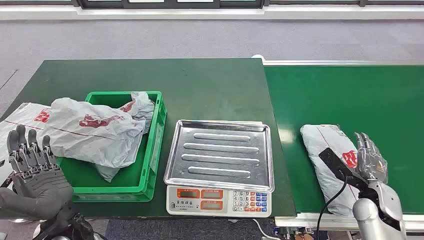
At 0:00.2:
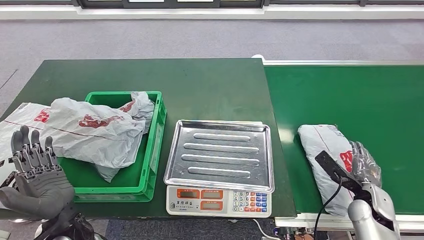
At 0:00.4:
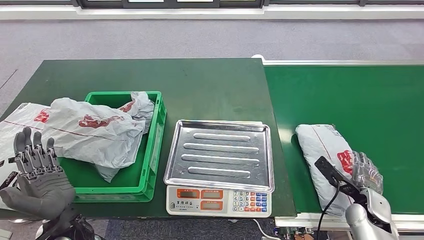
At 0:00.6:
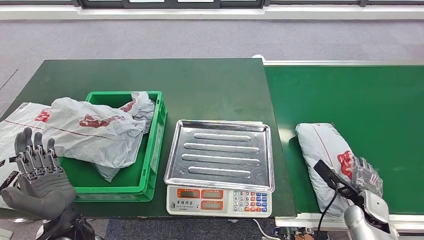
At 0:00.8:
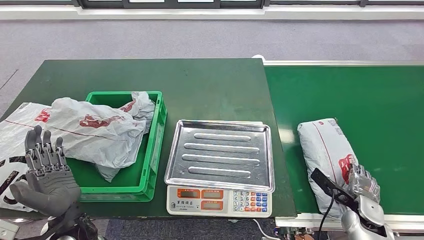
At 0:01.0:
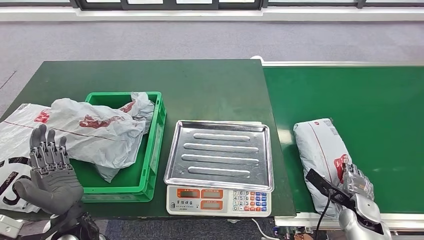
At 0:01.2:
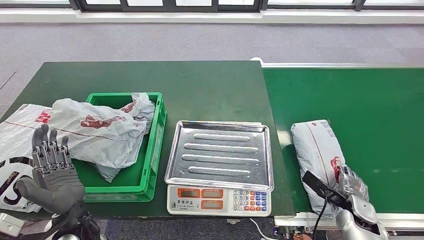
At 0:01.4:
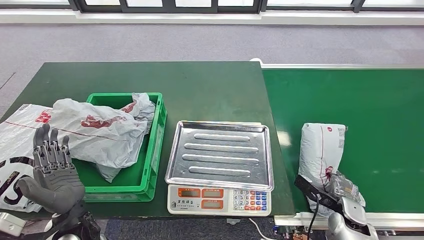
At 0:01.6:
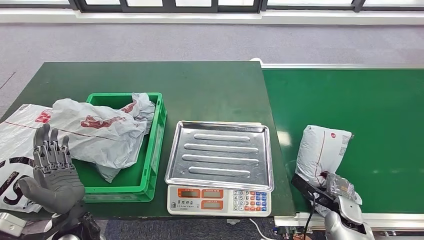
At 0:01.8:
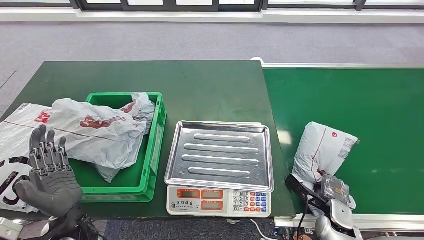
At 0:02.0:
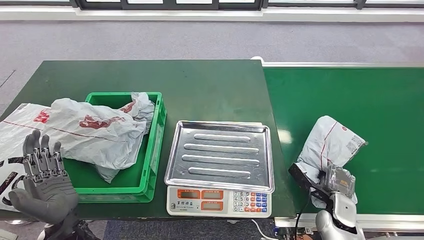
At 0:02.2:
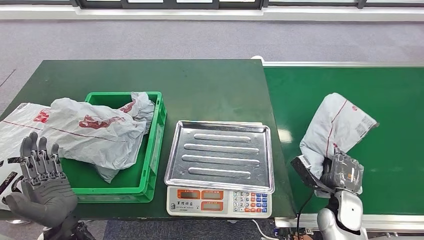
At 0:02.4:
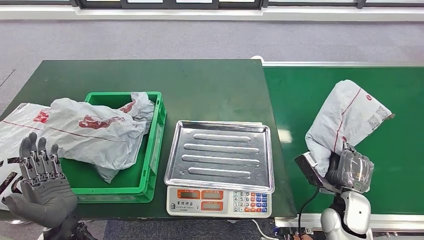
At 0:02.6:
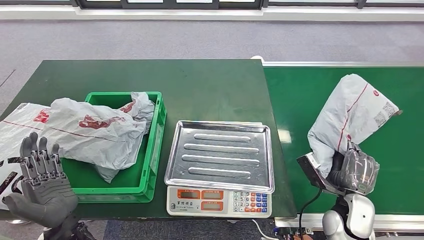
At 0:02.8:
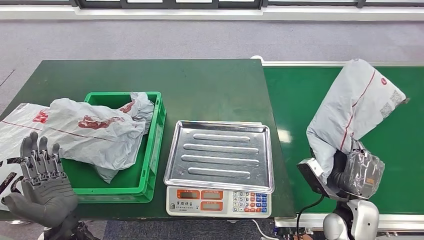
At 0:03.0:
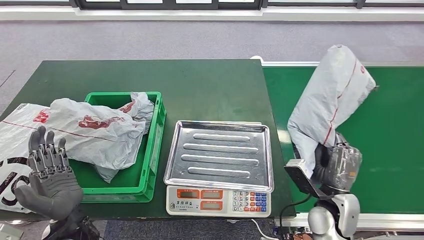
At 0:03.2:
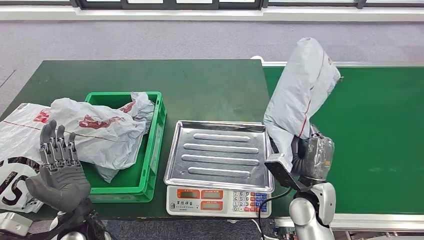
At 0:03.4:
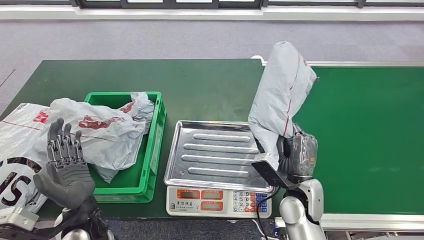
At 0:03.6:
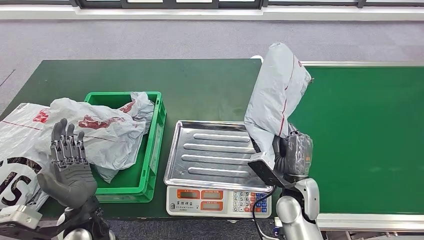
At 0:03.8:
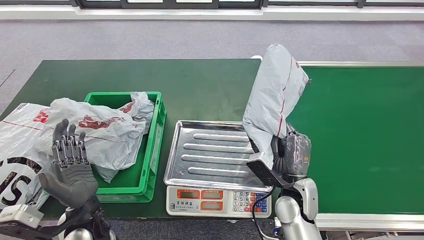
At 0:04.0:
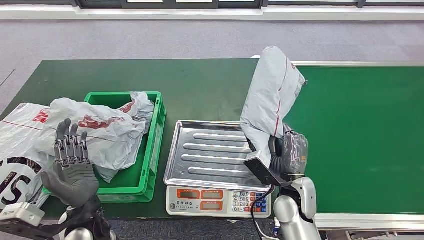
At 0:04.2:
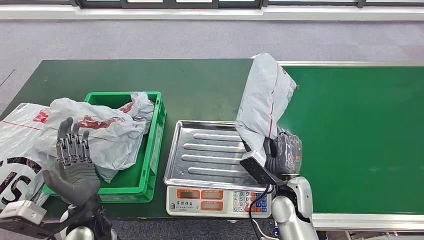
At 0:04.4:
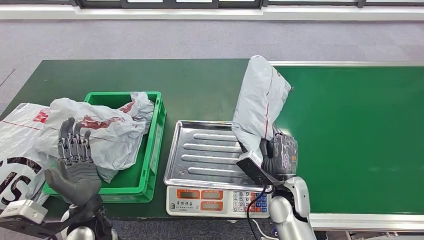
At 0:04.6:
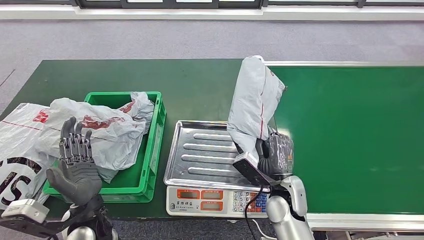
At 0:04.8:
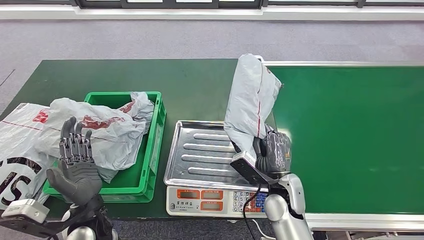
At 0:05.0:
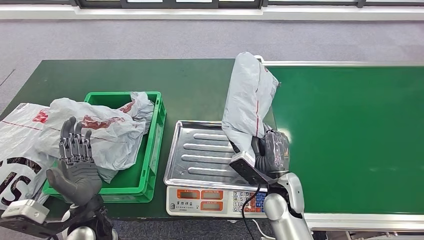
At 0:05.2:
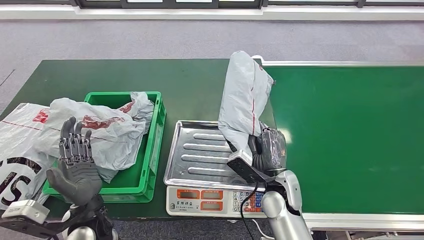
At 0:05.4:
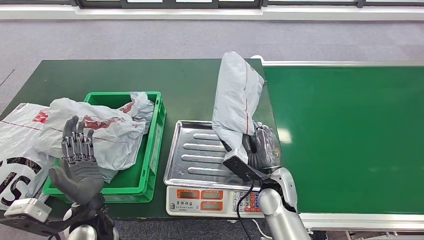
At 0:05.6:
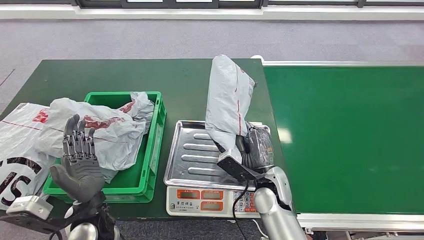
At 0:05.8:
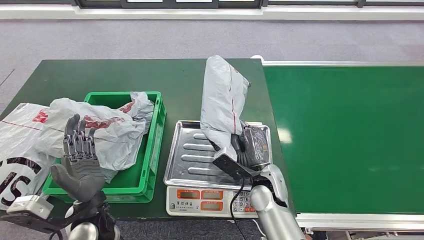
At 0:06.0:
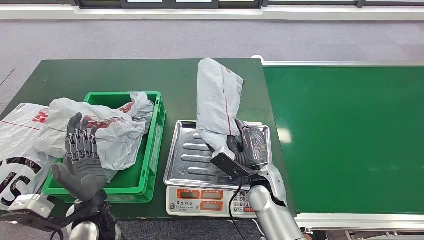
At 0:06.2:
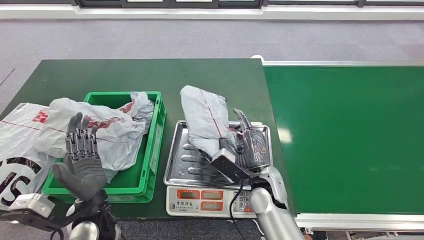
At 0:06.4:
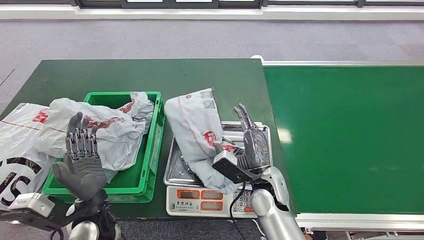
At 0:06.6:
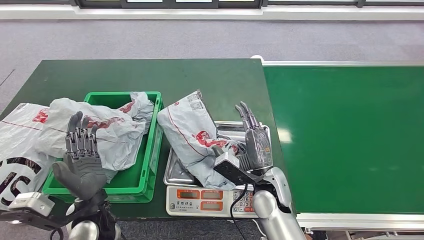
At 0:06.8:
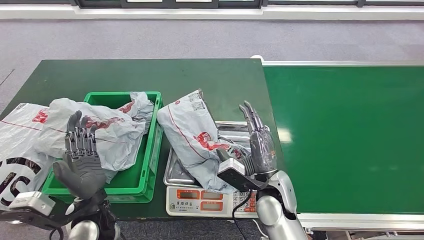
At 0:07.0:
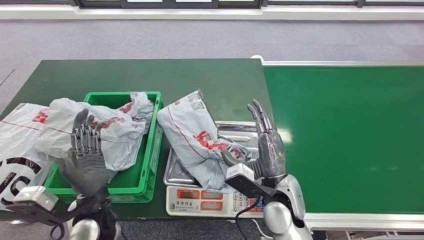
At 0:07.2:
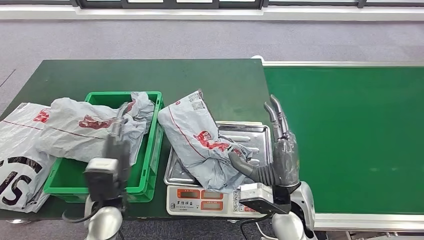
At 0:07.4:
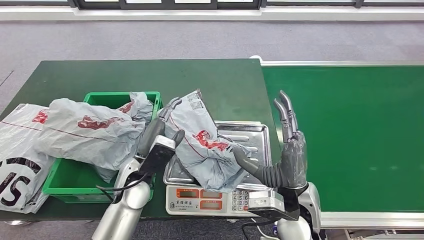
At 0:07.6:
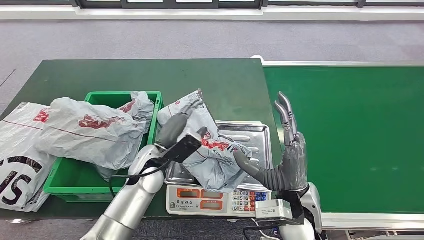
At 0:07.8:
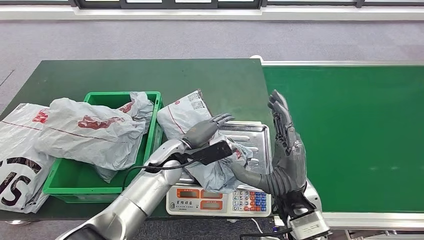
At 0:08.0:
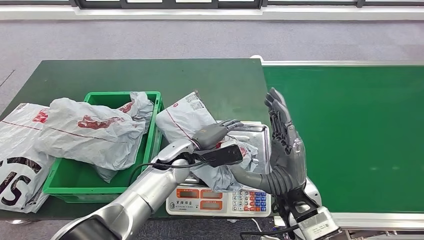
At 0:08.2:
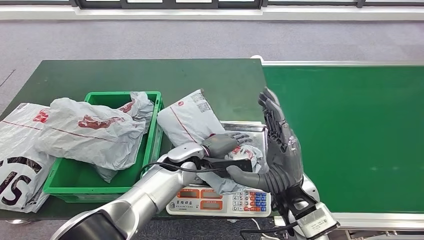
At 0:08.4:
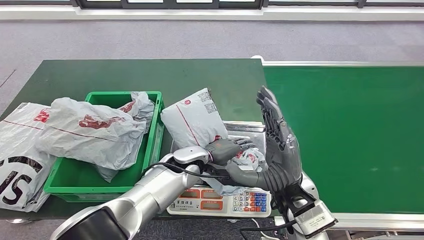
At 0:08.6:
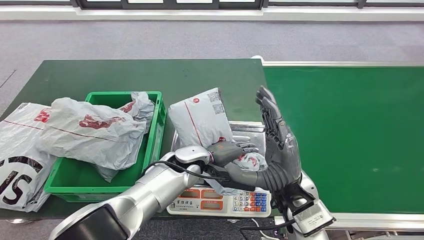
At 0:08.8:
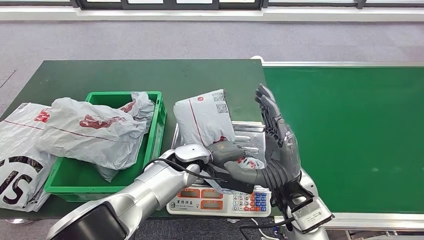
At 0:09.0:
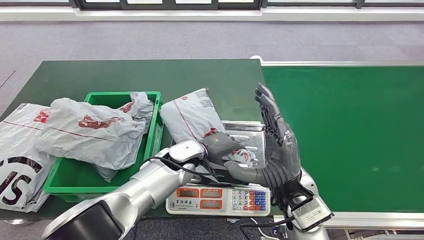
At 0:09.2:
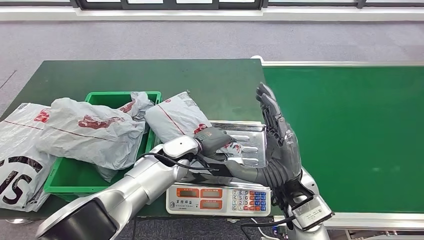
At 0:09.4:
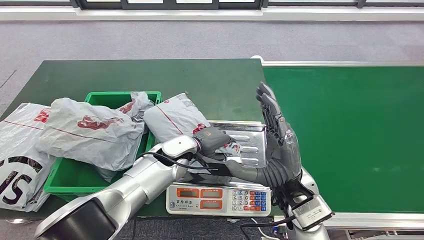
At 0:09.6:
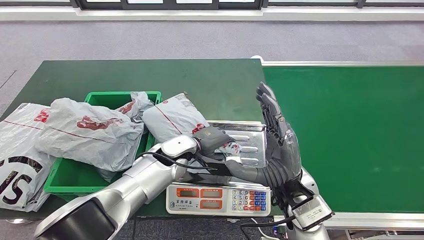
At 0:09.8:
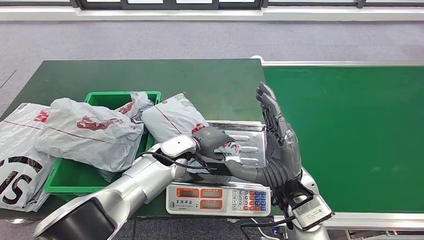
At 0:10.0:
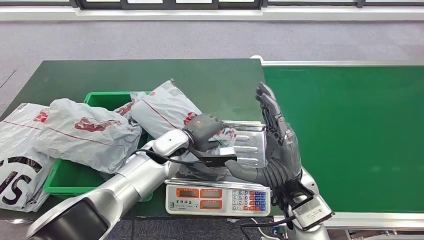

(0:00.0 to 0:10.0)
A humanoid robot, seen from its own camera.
Step, 0:00.0 - 0:02.6: Pick up the package from the conveyor belt.
Step, 0:03.0 - 0:06.8: Place the package onto the inbound machine.
Step, 0:07.0 - 0:10.0: Pick up the package from the inbound machine.
0:04.2 - 0:05.8: The right hand travels to the left by roughly 5 cm.
0:07.2 - 0:08.6: The left hand shifts roughly 20 cm to the right and forward.

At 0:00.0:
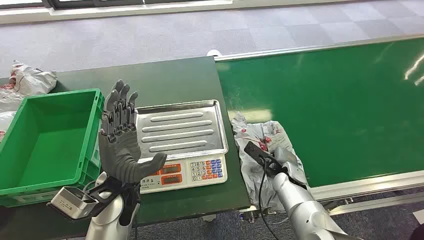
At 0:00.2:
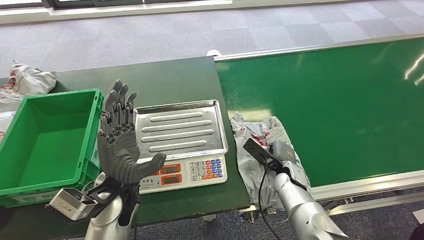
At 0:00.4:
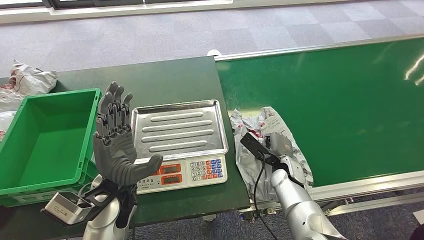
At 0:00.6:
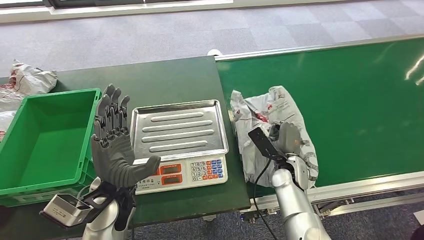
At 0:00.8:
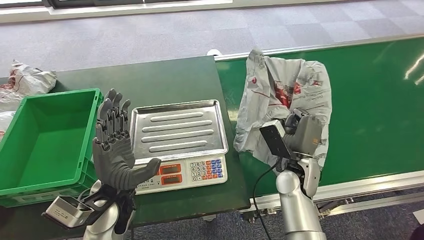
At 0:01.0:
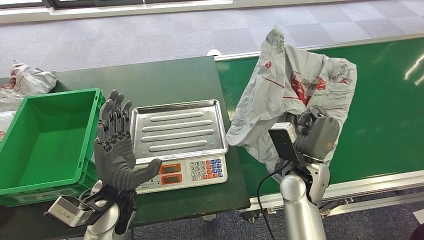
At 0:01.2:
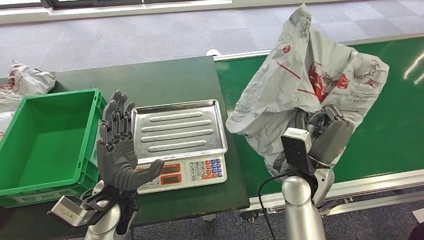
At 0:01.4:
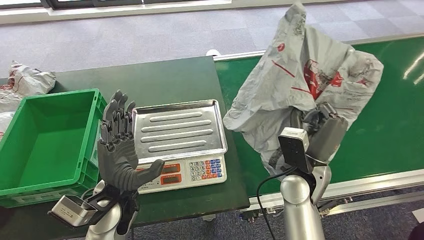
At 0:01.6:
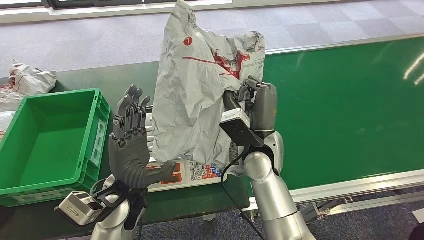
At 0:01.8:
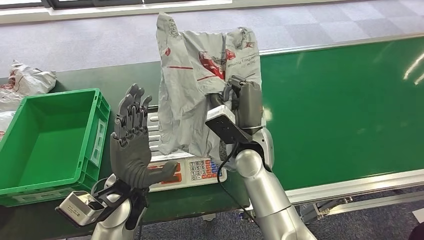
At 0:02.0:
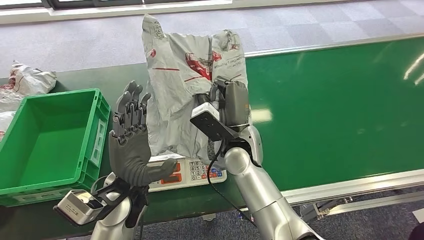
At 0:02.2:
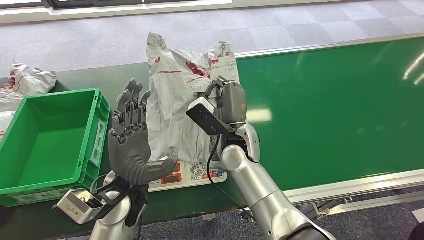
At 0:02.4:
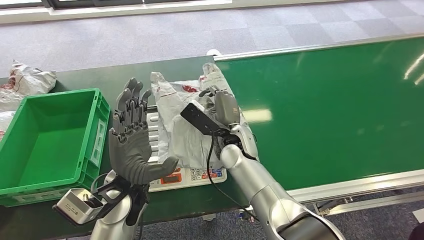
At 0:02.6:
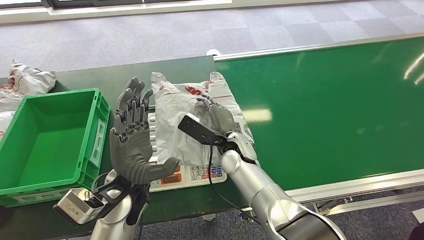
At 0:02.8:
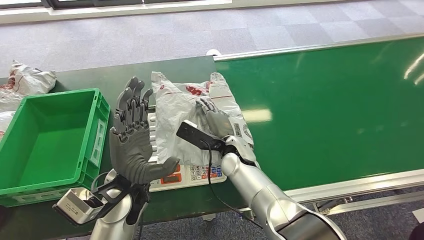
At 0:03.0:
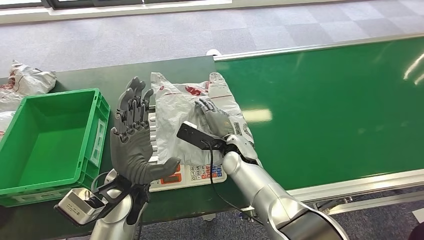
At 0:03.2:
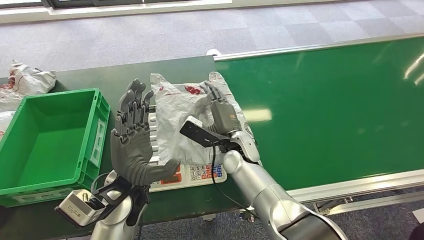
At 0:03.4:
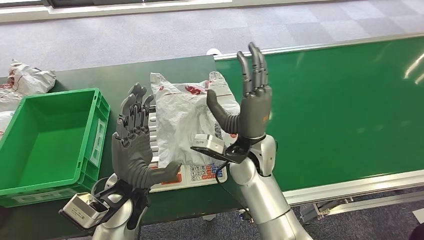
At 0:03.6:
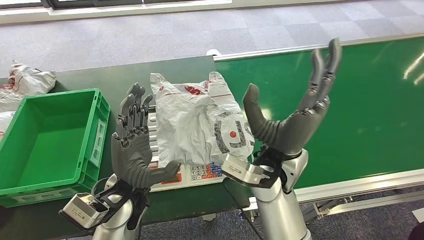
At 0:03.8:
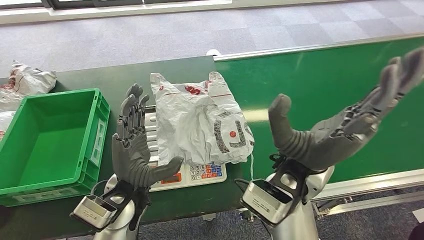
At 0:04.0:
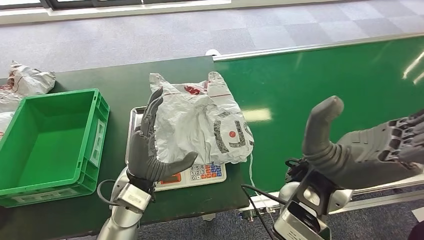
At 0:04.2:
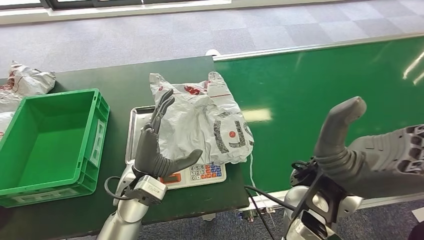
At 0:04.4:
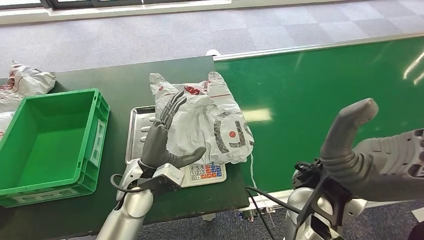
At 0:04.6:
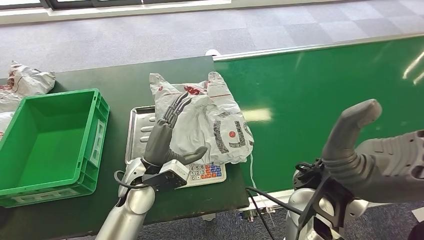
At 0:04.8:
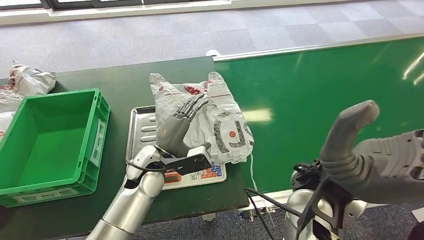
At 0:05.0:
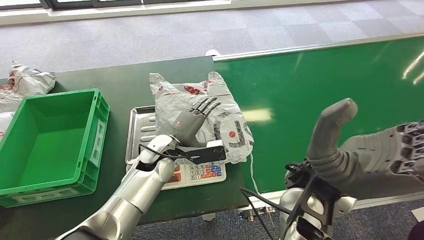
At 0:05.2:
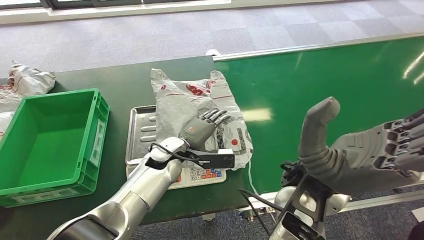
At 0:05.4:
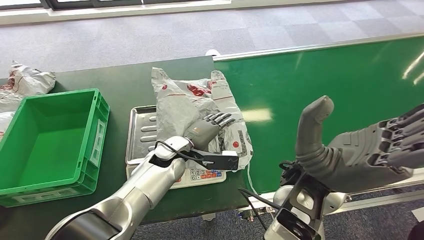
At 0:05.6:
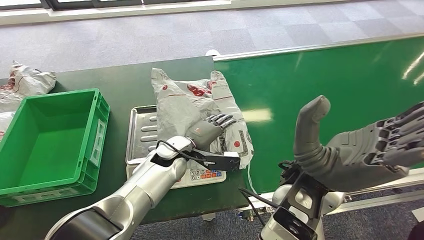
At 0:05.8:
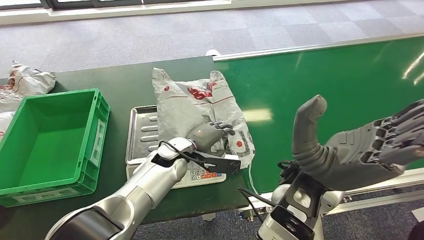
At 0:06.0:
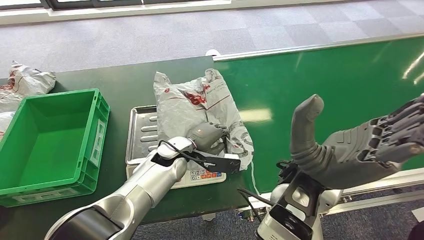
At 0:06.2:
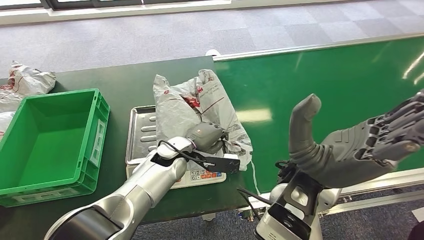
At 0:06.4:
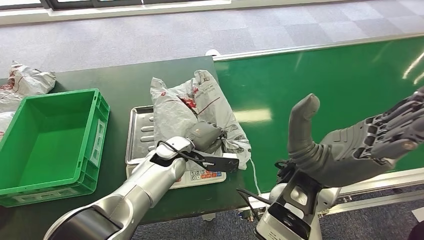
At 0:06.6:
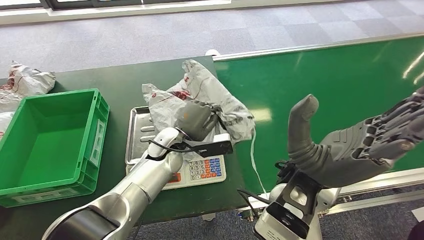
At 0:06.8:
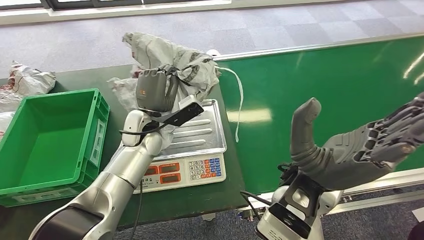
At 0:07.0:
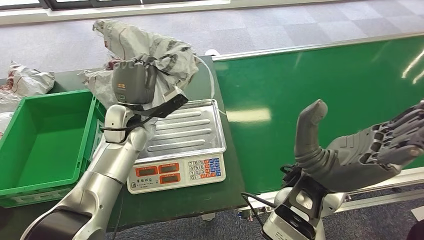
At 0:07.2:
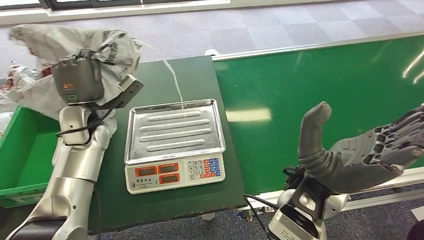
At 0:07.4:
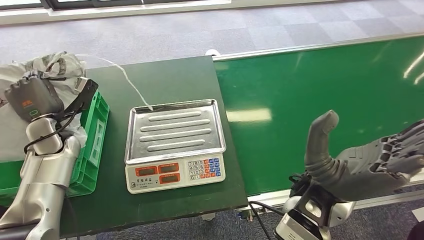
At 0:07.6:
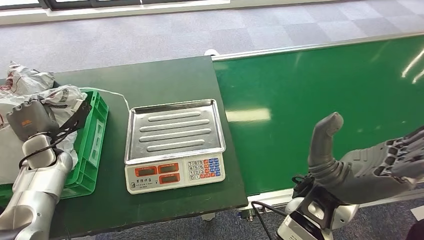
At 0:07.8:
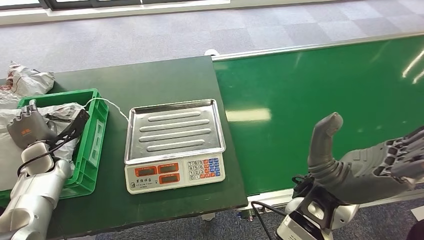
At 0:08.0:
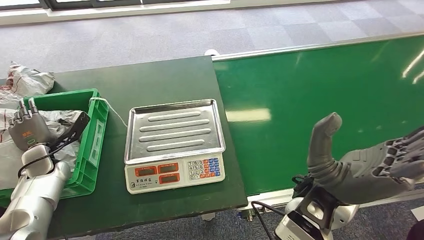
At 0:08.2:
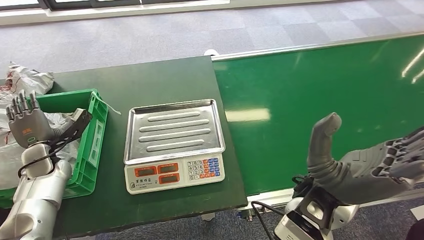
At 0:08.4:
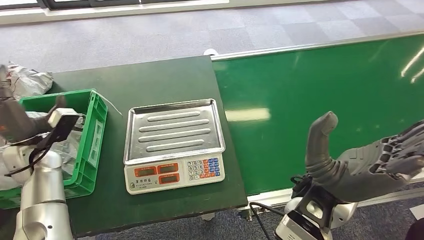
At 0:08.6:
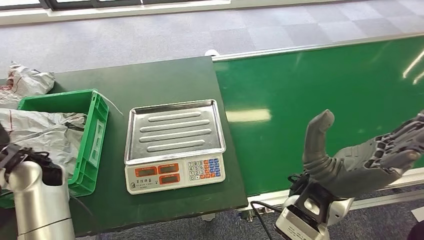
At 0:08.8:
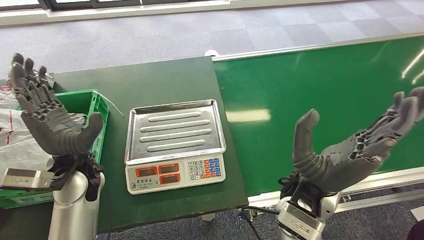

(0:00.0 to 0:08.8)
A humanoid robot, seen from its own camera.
Step, 0:00.0 - 0:01.4: Pick up the package from the conveyor belt.
Step, 0:01.6 - 0:03.8: Place the package onto the inbound machine.
Step, 0:04.0 - 0:07.2: Pick up the package from the inbound machine.
Step, 0:07.4 - 0:08.8: Place the package into the parcel locker.
